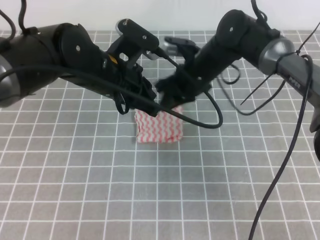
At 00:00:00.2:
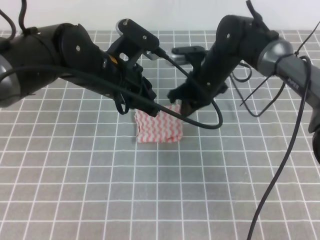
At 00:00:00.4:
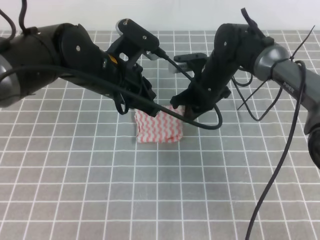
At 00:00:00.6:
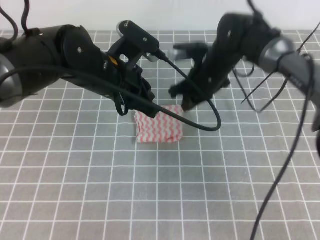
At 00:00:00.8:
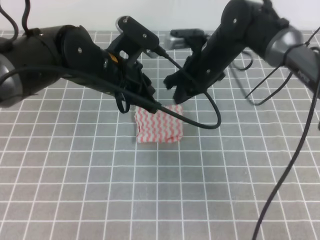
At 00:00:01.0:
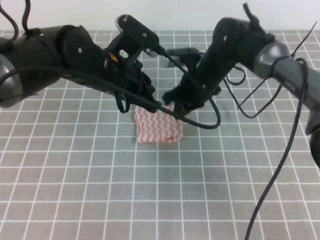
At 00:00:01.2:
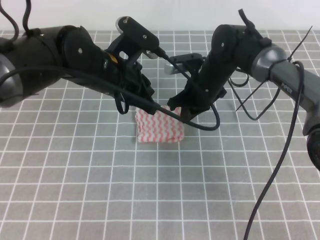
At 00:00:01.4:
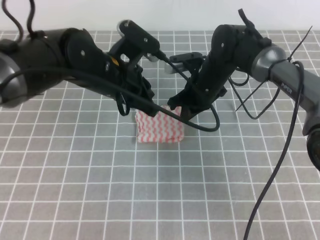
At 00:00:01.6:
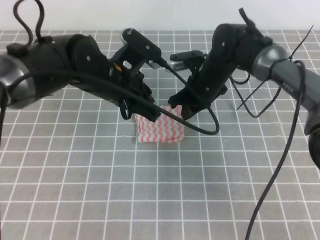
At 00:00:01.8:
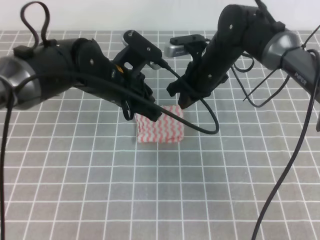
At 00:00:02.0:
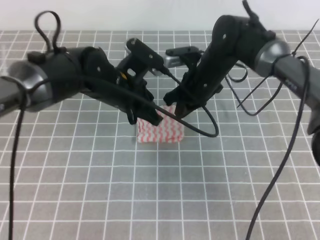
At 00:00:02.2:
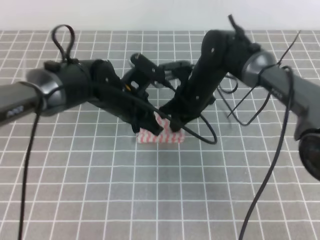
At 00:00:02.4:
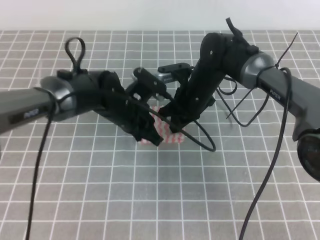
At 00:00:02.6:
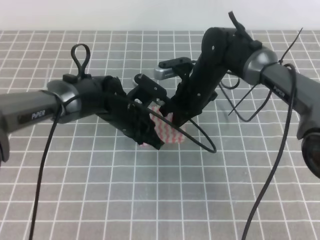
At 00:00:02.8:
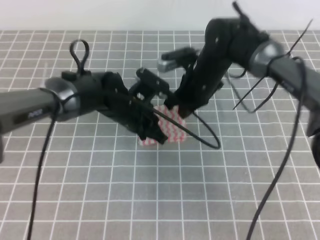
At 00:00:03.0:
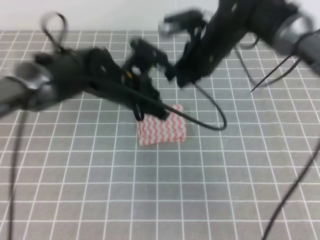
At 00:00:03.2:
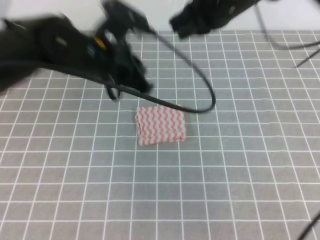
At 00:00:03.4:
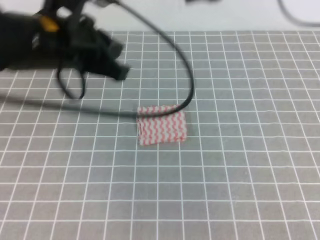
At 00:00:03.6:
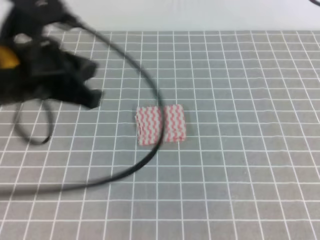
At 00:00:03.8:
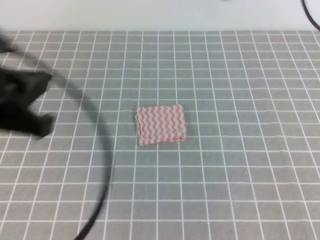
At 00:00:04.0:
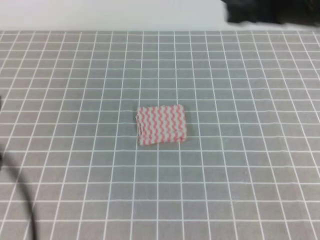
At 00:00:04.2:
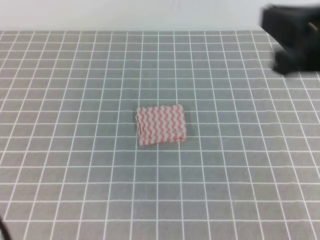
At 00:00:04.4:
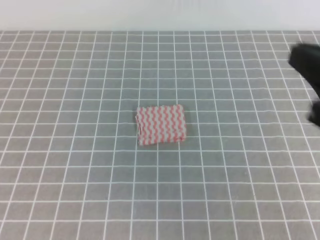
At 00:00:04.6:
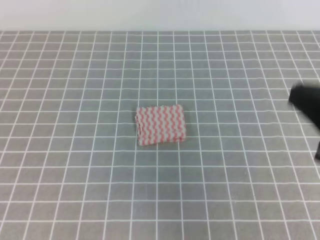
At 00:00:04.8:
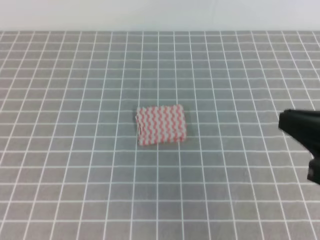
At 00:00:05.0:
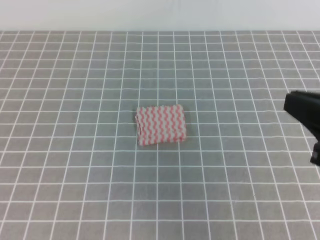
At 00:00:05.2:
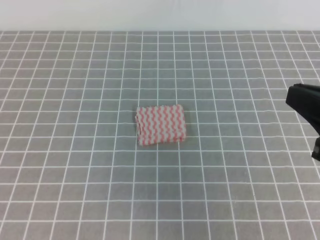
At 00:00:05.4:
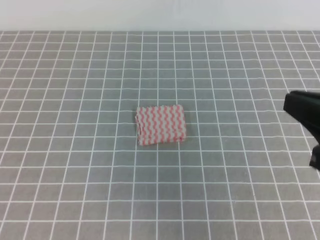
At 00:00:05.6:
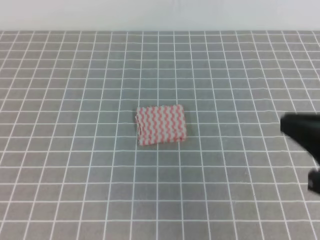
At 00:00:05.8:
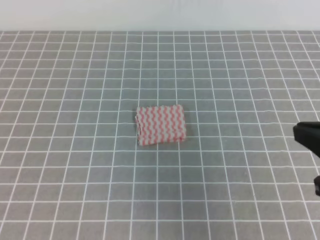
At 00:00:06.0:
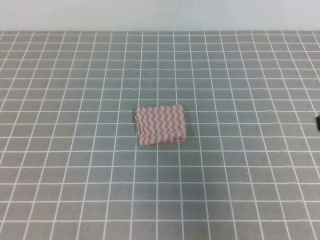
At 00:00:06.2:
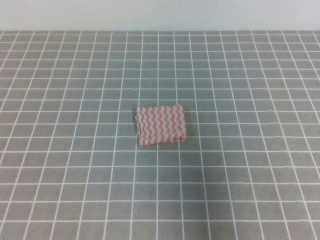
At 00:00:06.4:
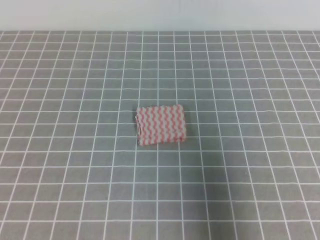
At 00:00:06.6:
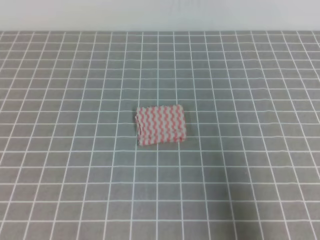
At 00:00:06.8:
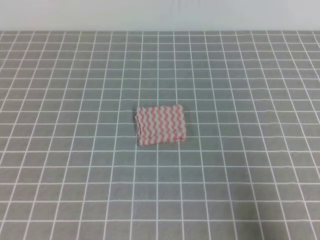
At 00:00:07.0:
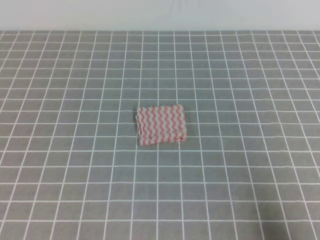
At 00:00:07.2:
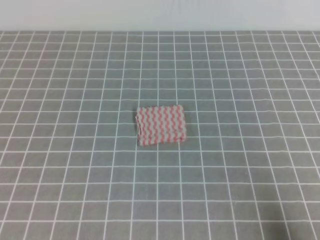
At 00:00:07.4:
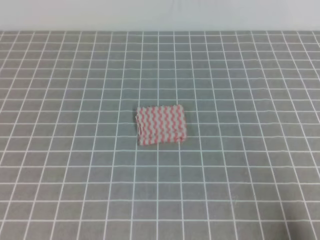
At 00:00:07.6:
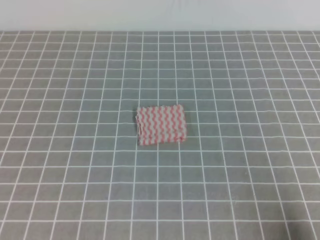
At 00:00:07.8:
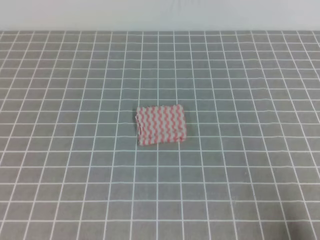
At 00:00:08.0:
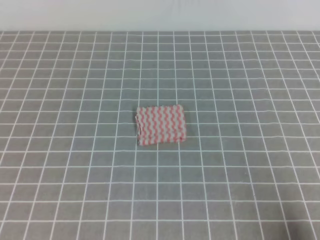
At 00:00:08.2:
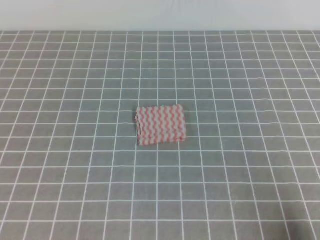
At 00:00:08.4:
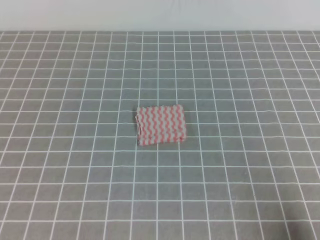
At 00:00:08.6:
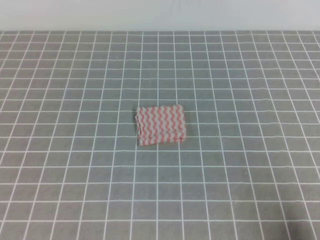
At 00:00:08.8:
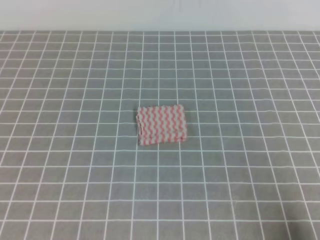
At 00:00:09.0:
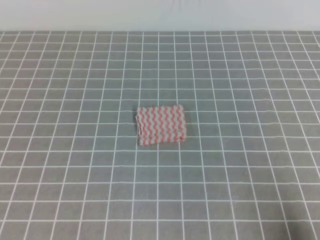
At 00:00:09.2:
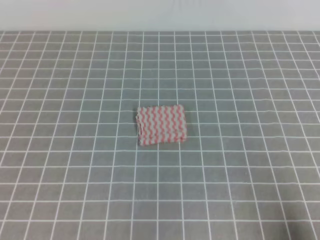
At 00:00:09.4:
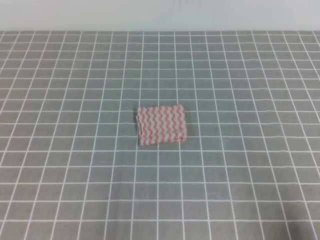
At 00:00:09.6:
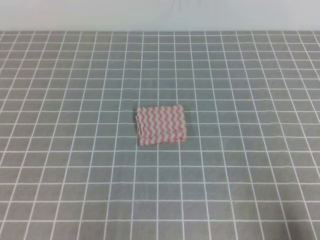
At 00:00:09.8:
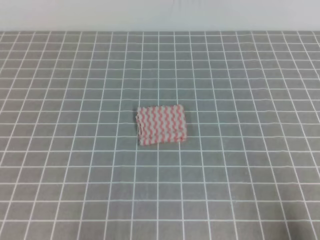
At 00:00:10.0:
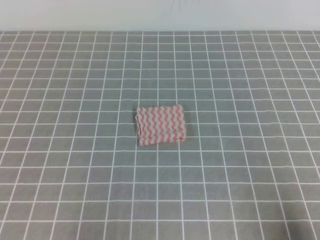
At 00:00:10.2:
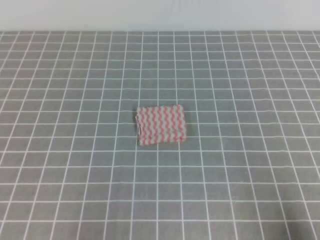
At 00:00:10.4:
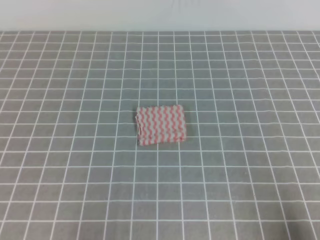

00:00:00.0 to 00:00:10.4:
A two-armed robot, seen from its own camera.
00:00:00.0 to 00:00:01.4: The right gripper closes its fingers.
00:00:01.4 to 00:00:03.0: The right gripper moves upward, approximately 10 cm.
00:00:03.0 to 00:00:04.4: The right gripper heads backward and to the right, covering approximately 30 cm. The left gripper heads backward and to the left, covering roughly 35 cm.
00:00:04.4 to 00:00:06.0: The right gripper changes place by approximately 5 cm.
00:00:06.0 to 00:00:07.4: The right gripper is displaced downward, backward and to the right by roughly 20 cm.
